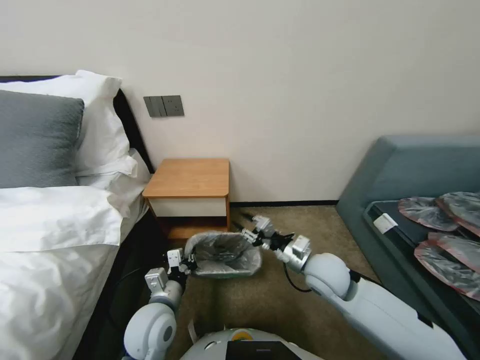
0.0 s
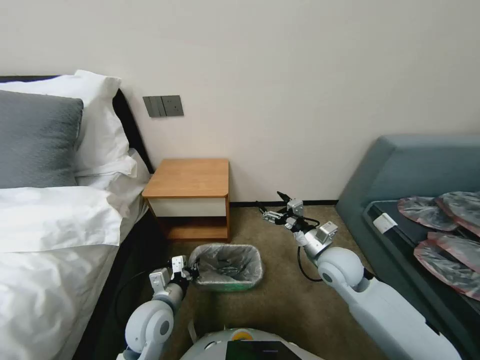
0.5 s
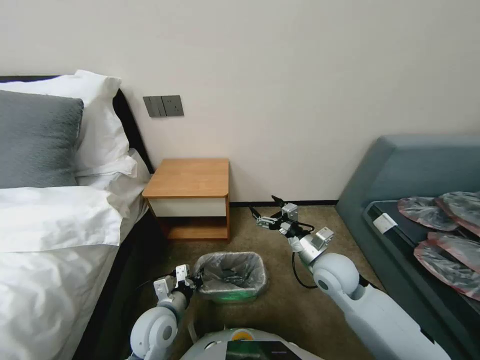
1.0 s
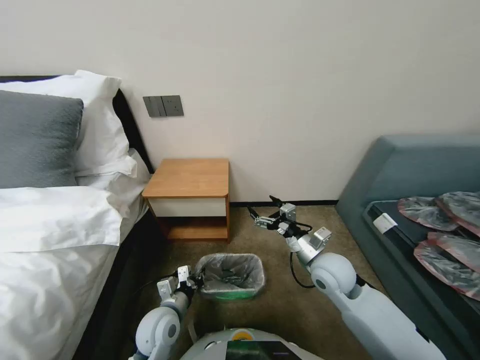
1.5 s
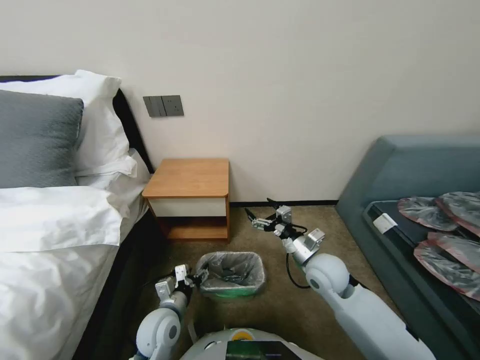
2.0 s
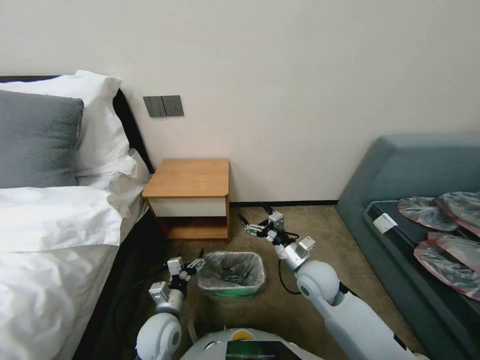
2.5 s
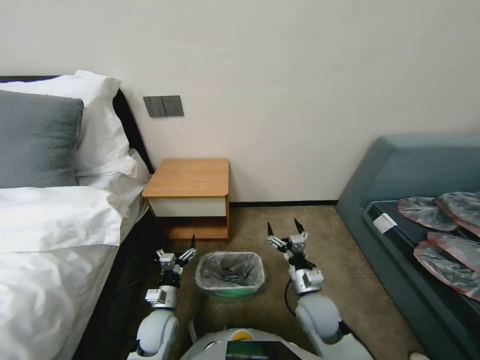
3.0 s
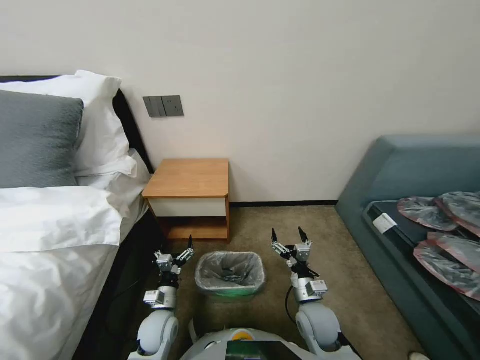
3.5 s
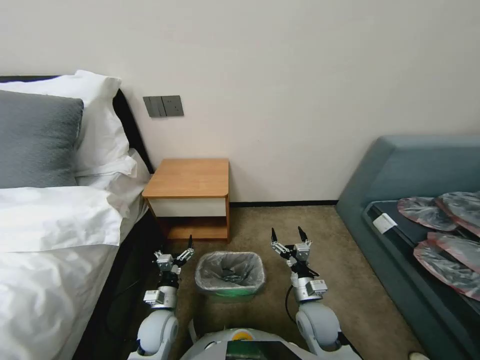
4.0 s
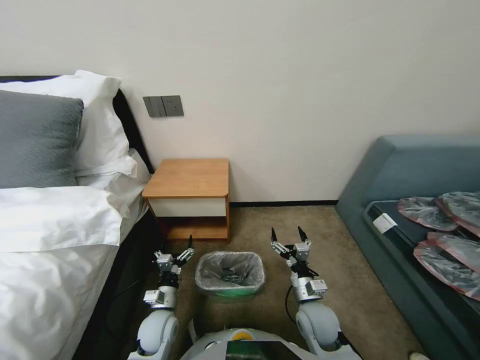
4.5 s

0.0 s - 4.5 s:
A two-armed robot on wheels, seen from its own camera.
Task of the whole recording: Pick up the garbage bag from the table and place it over the trash can.
0.0 s - 2.0 s: The right gripper opens, while the left gripper shifts about 5 cm downward, and opens.
2.0 s - 4.5 s: The right gripper shifts some 15 cm downward and backward. The left gripper travels downward by about 5 cm, and opens.

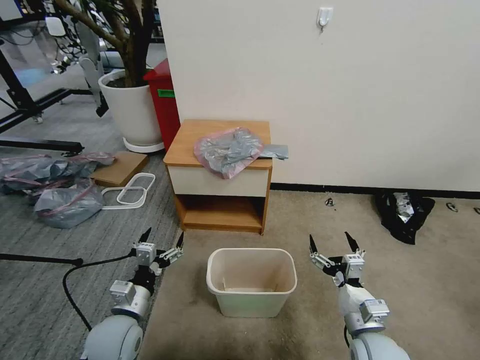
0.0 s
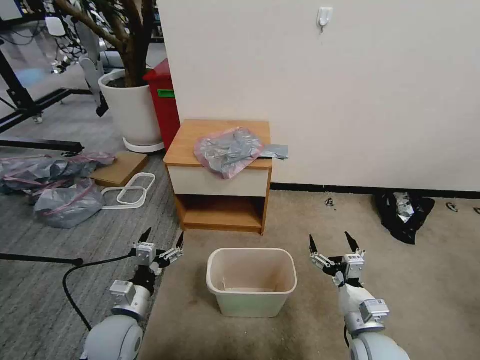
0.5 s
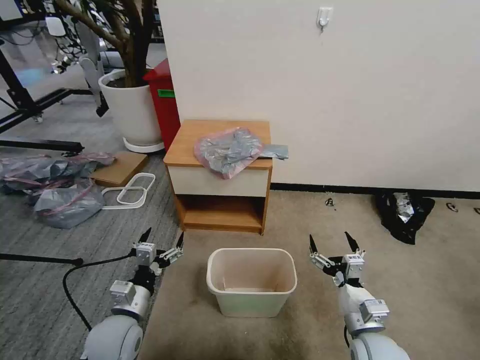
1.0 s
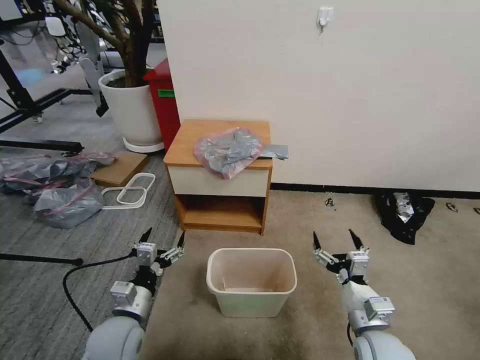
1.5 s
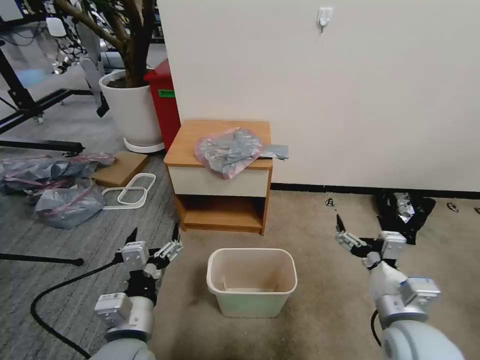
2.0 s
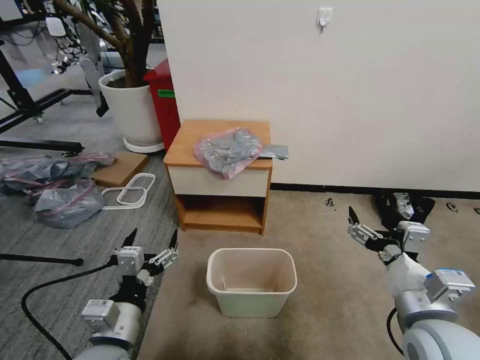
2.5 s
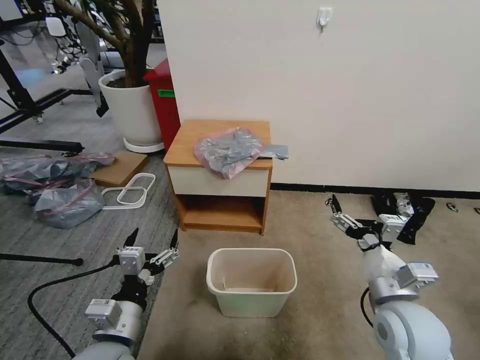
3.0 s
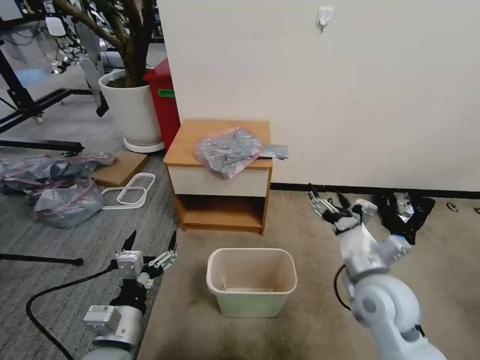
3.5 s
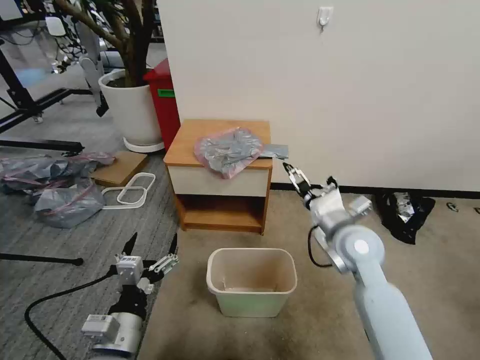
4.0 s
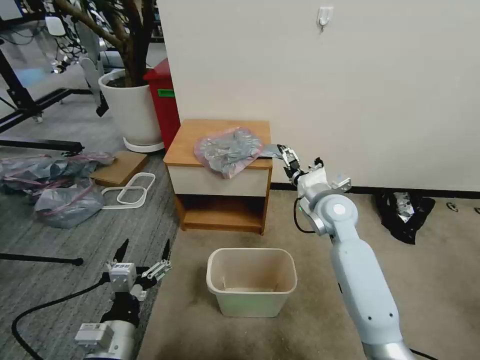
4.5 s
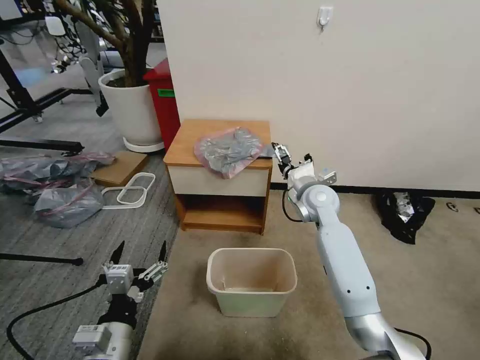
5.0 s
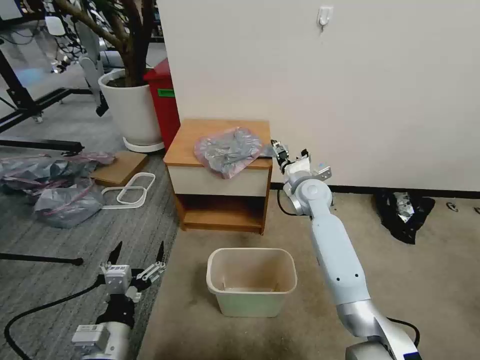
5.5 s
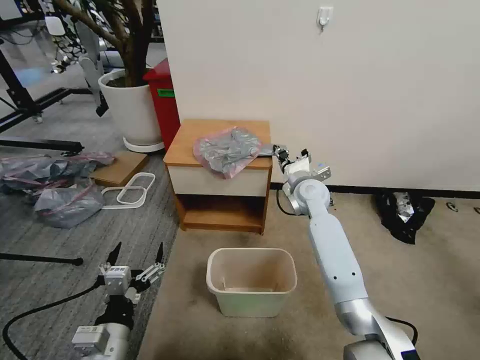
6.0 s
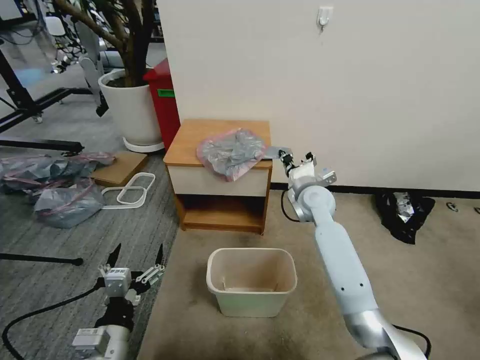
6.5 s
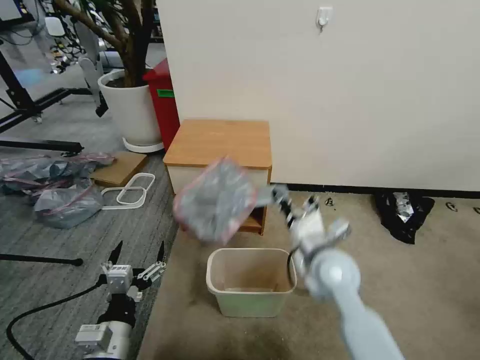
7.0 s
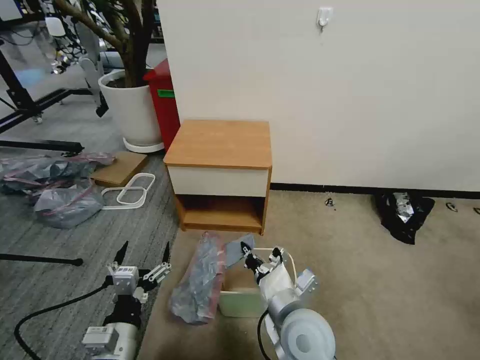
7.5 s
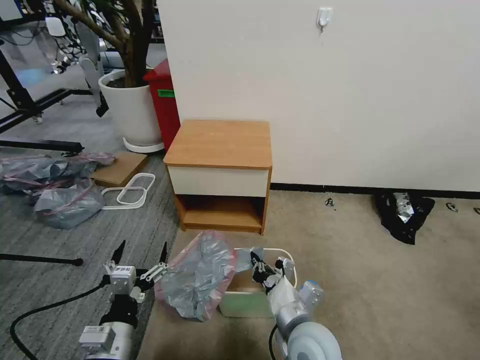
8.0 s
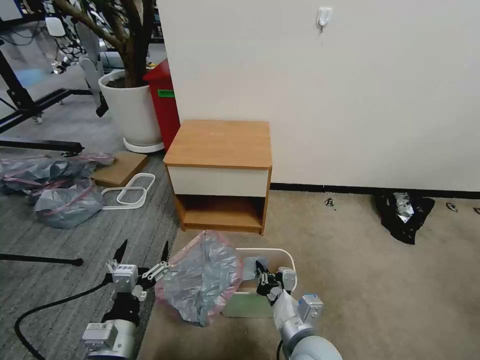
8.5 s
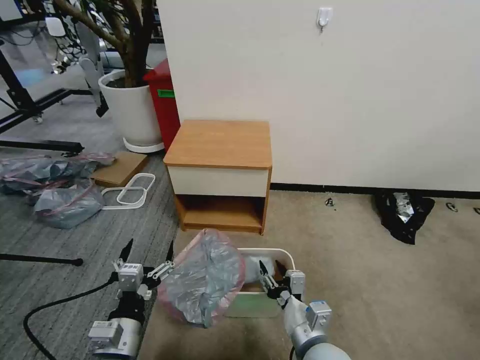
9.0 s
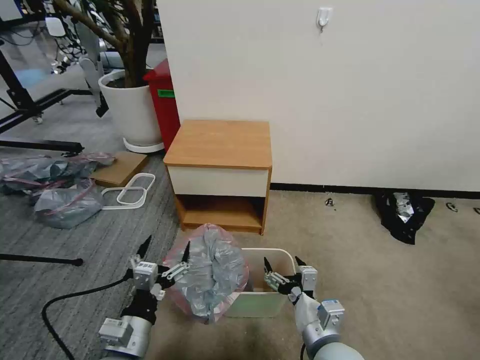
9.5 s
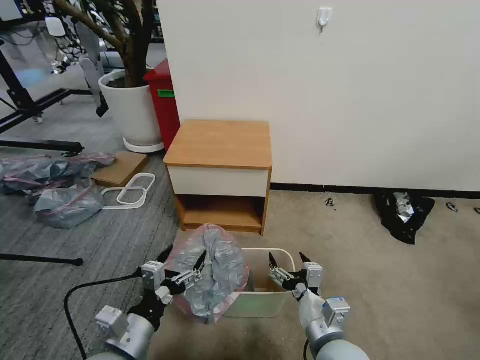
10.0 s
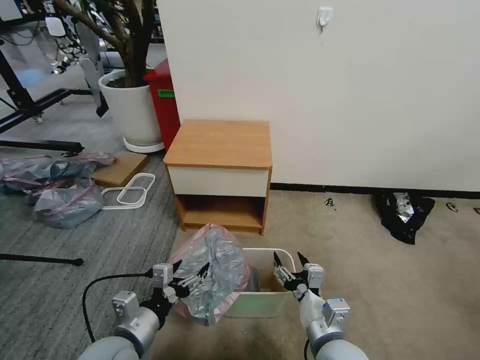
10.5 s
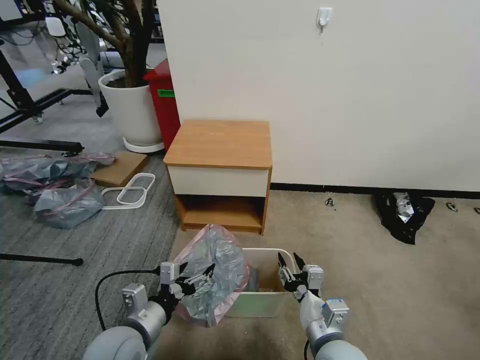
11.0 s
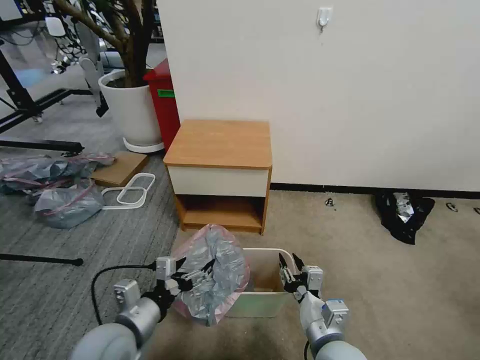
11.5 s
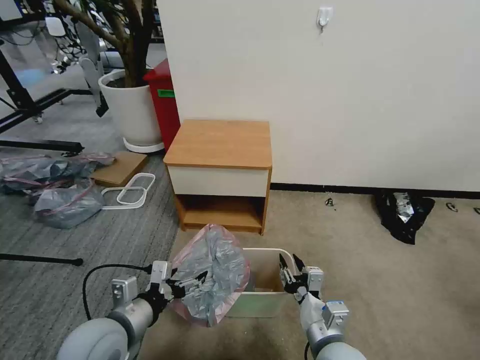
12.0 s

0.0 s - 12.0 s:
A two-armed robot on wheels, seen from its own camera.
Task of the whole recording: Pick up the garbage bag from the table and place it over the trash can.
2.0 s - 4.0 s: The right gripper travels forward by about 15 cm.
4.0 s - 6.0 s: The right gripper heads forward, covering roughly 15 cm, and closes up.
6.0 s - 8.0 s: The right gripper is displaced backward by about 30 cm.
8.0 s - 10.0 s: The right gripper ends up some 5 cm from where it was, and opens its fingers.
10.0 s - 12.0 s: The right gripper closes up. Meanwhile the left gripper changes place by about 5 cm.

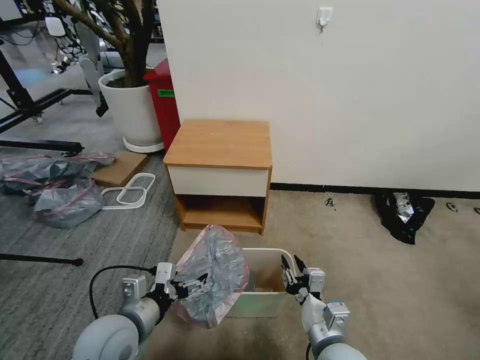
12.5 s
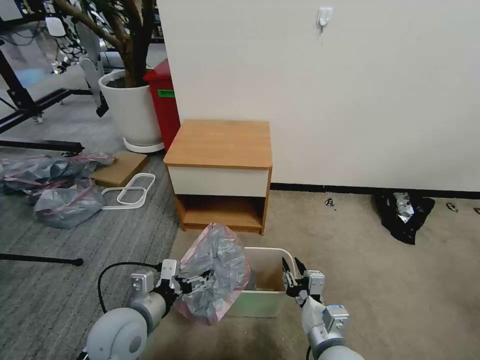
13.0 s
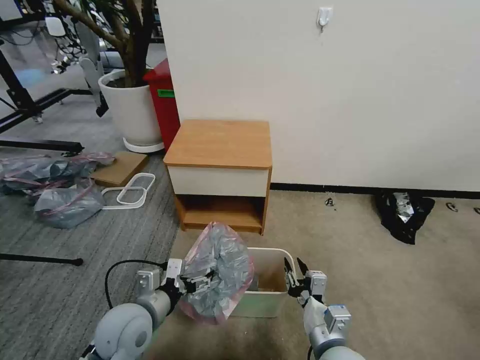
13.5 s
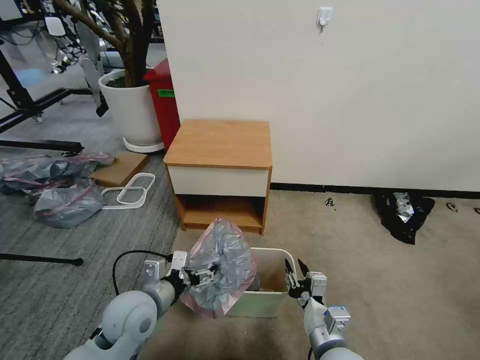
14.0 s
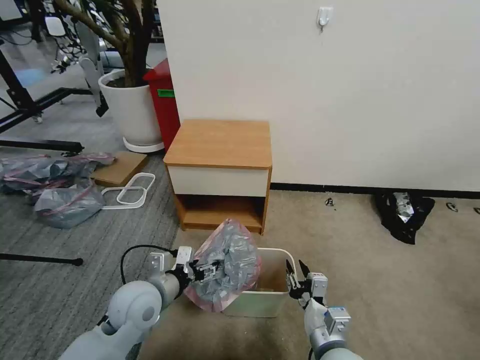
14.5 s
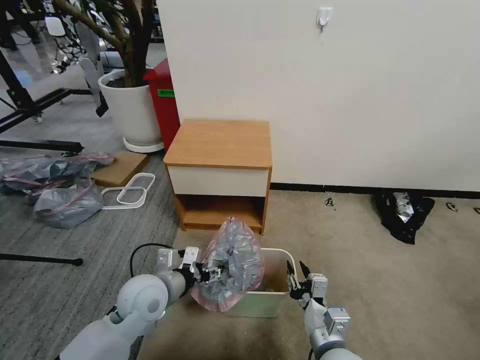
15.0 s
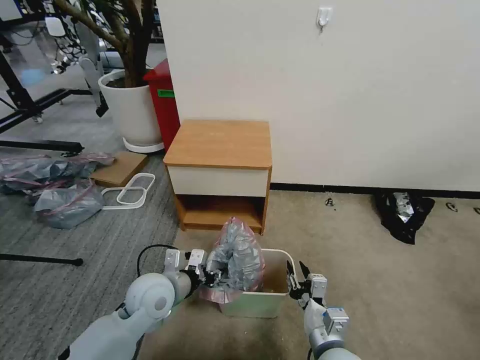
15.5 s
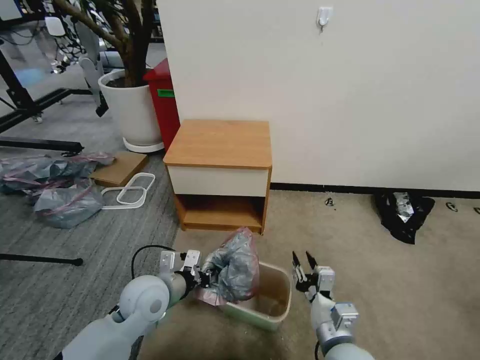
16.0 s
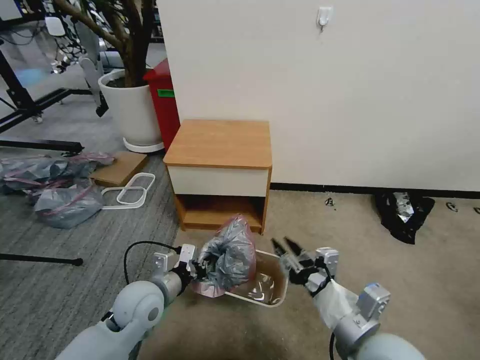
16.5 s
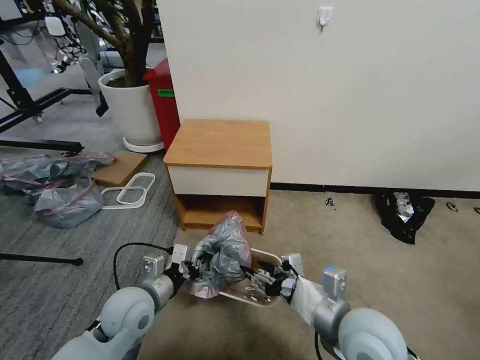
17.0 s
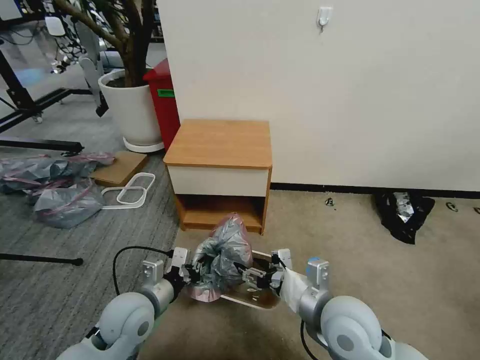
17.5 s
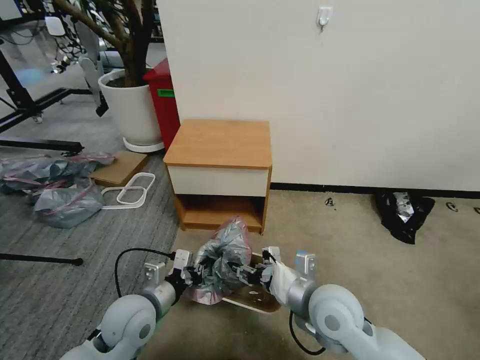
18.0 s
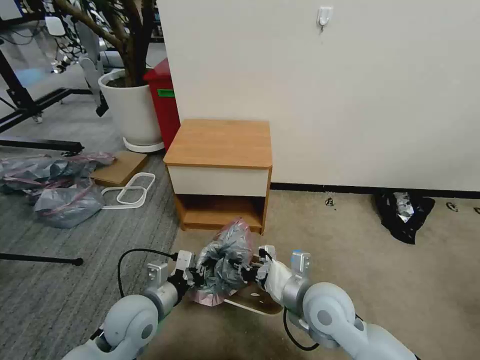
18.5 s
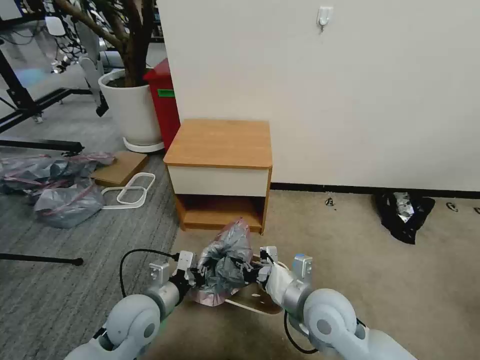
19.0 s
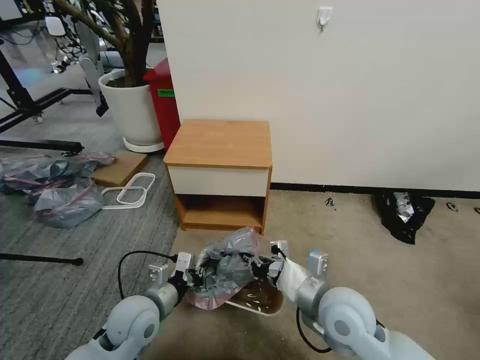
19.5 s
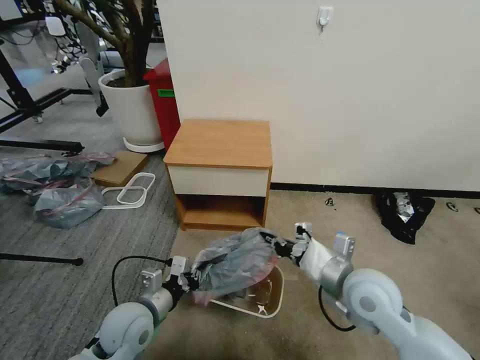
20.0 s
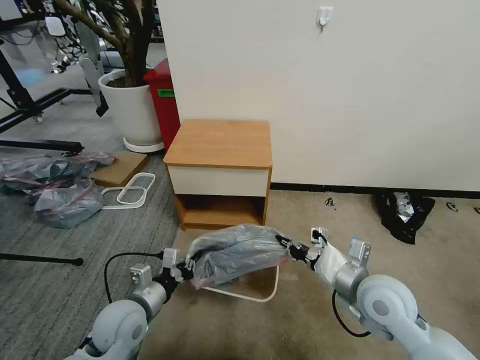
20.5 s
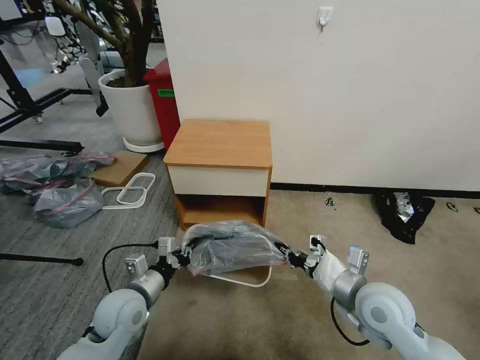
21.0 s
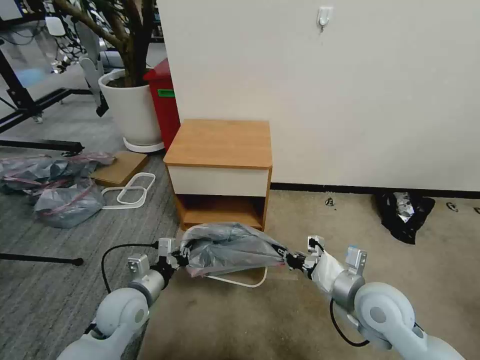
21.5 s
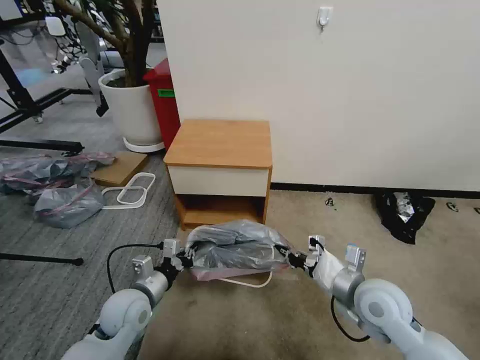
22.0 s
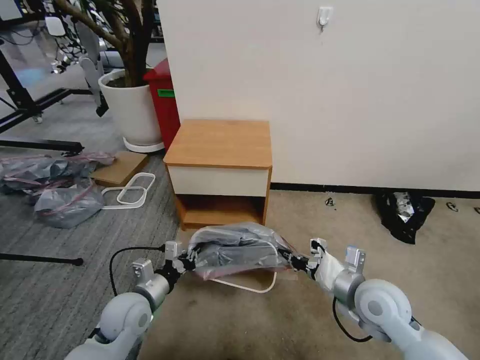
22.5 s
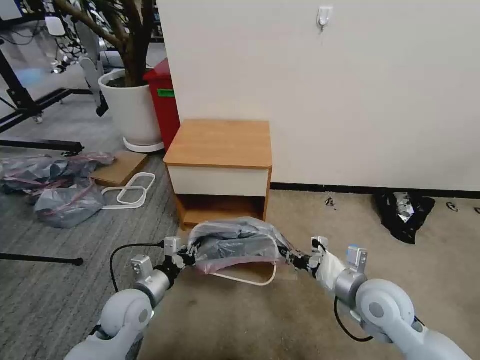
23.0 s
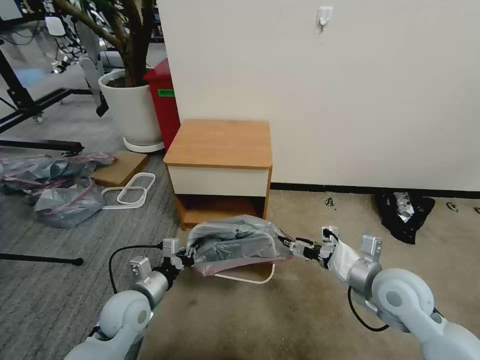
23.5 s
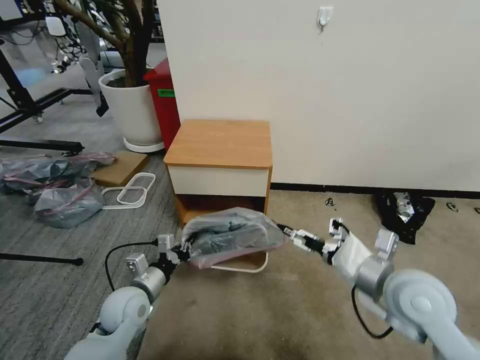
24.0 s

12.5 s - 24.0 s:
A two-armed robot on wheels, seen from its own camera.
Task of the whole recording: Pick up the garbage bag from the table and place it over the trash can.
12.5 s - 14.5 s: The left gripper is displaced forward by roughly 5 cm.
14.5 s - 16.5 s: The right gripper goes some 15 cm upward. Meanwhile the left gripper closes its fingers.
16.5 s - 18.5 s: The right gripper goes about 10 cm forward and to the left.
18.5 s - 20.0 s: The right gripper shifts some 5 cm to the right.
20.0 s - 22.0 s: There are only small adjustments of the grippers.
22.0 s - 24.0 s: The right gripper is displaced upward by some 10 cm, and opens its fingers.
